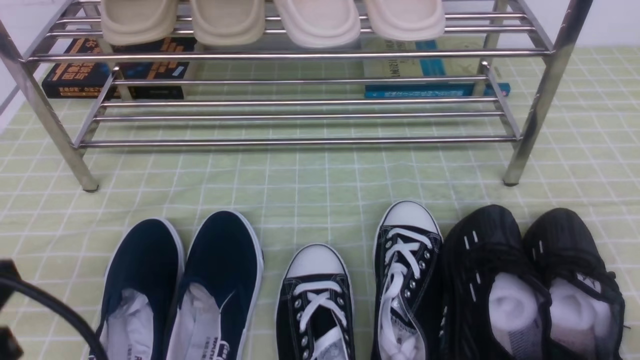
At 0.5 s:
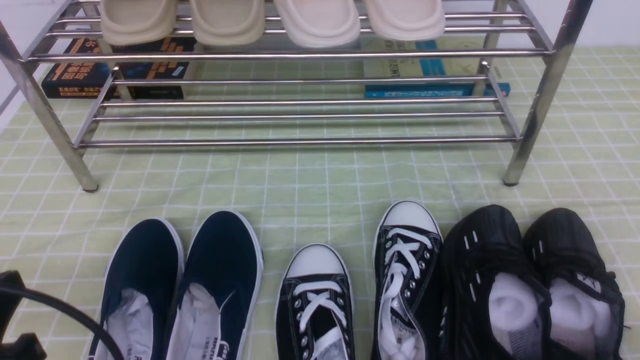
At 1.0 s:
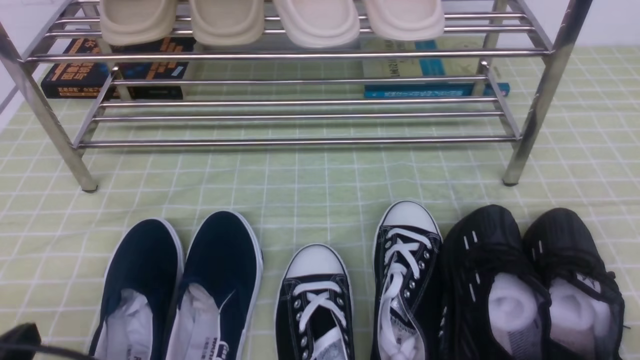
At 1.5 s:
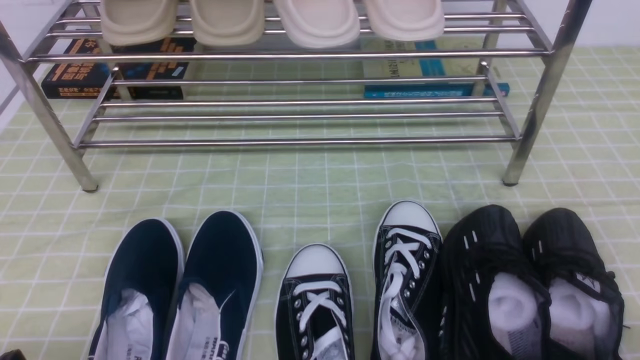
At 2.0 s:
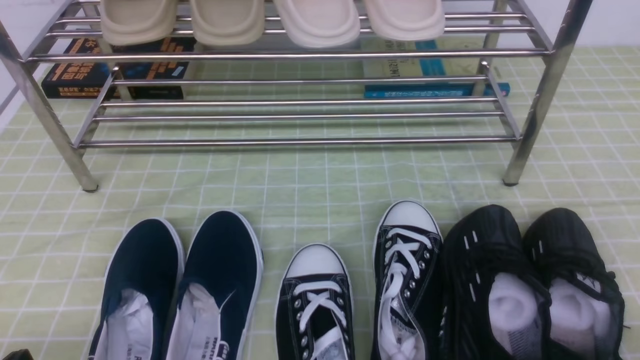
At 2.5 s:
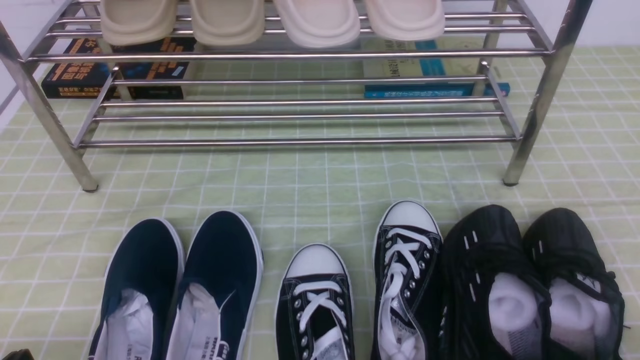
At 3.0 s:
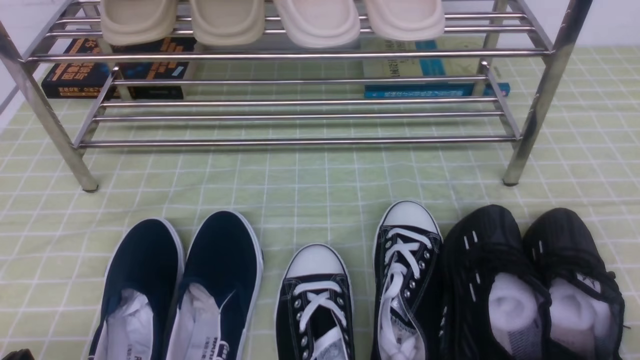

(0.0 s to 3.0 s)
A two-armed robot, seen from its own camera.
0.0 s - 1.5 s: The left gripper heads downward, covering some 15 cm.
1.5 s - 3.0 s: Both grippers stay put.
